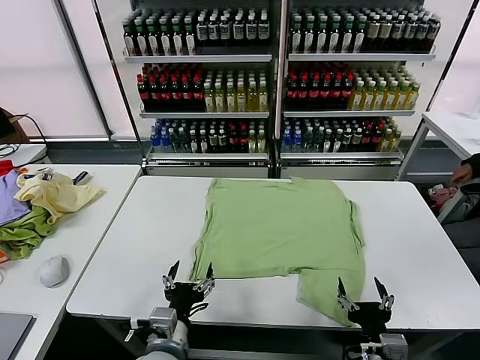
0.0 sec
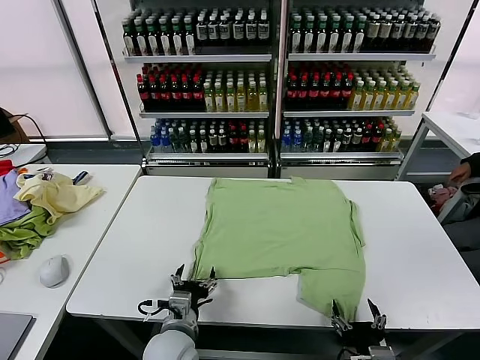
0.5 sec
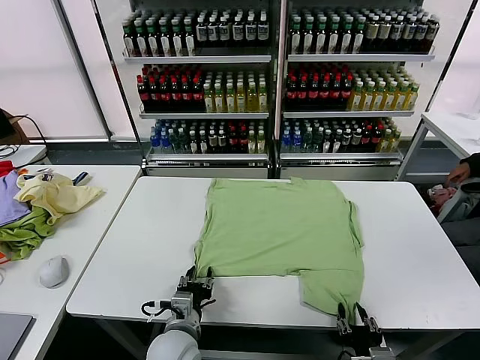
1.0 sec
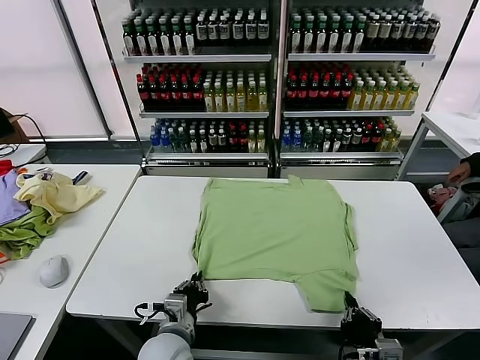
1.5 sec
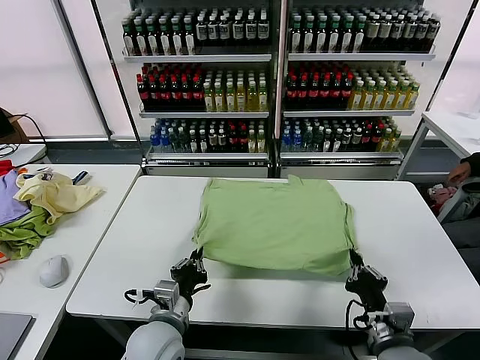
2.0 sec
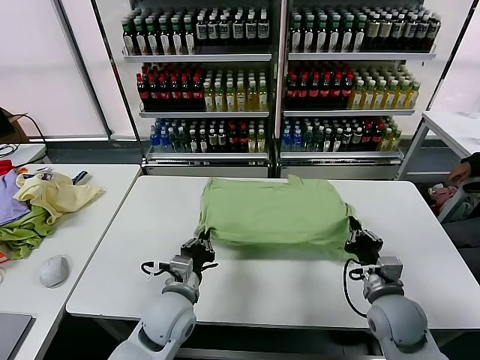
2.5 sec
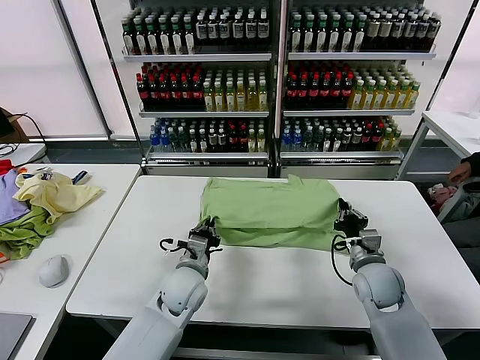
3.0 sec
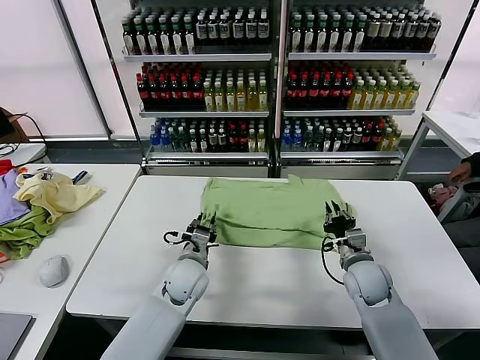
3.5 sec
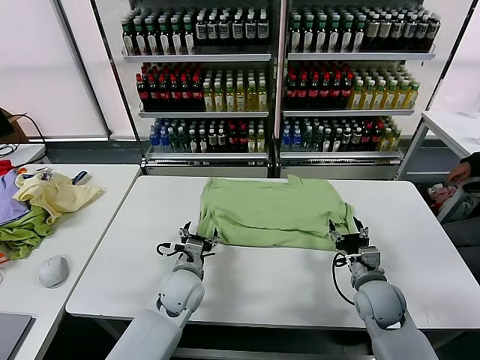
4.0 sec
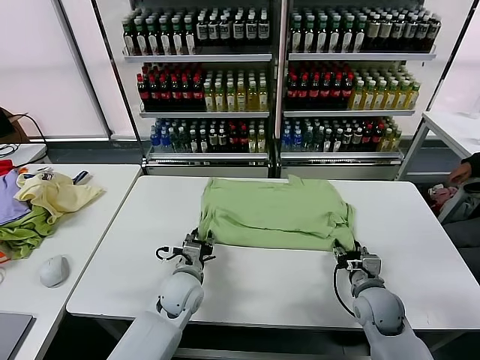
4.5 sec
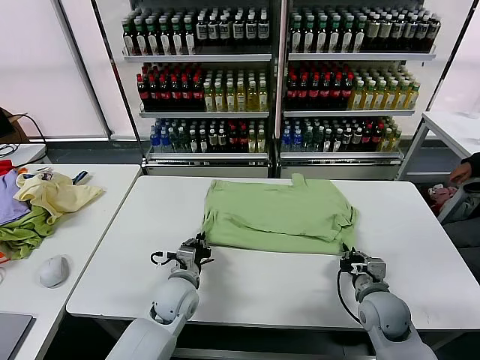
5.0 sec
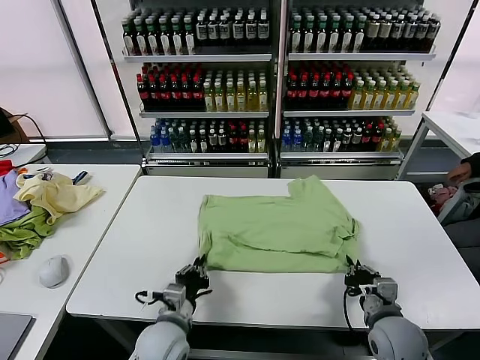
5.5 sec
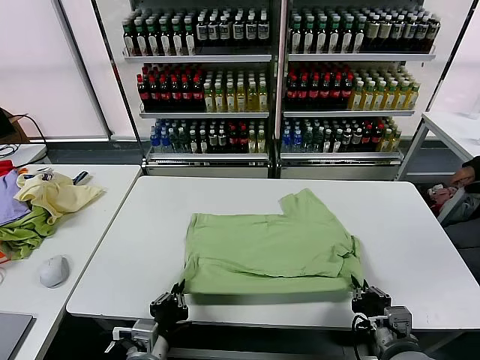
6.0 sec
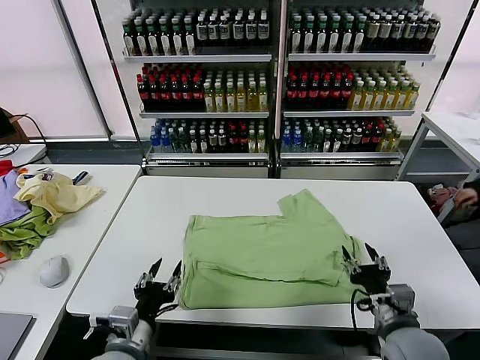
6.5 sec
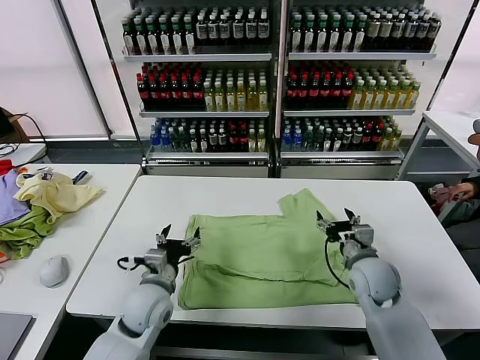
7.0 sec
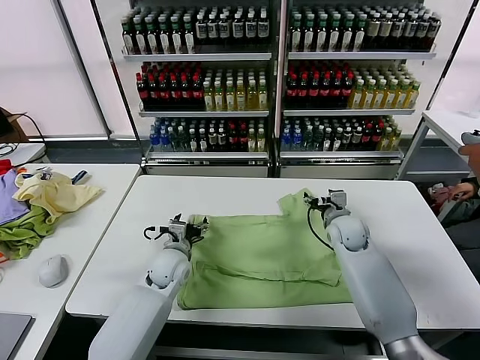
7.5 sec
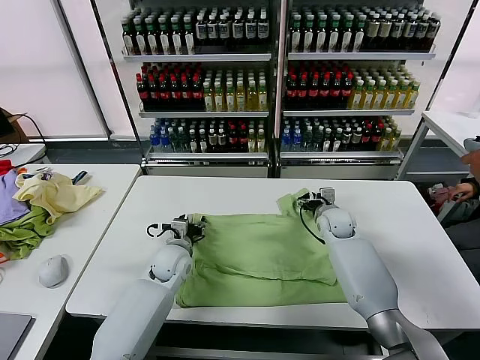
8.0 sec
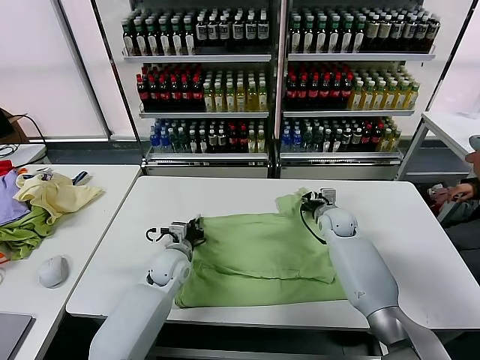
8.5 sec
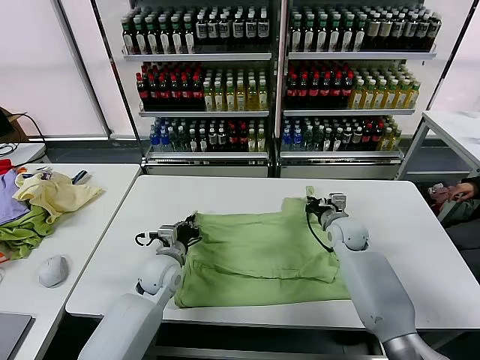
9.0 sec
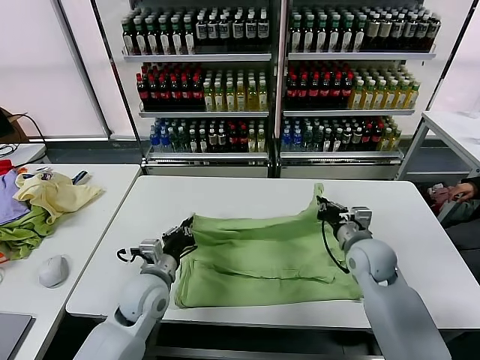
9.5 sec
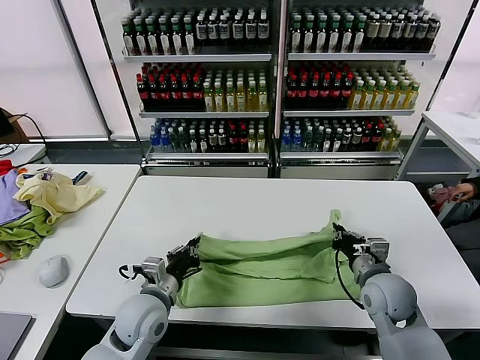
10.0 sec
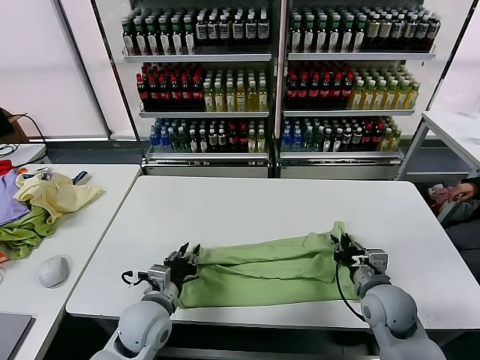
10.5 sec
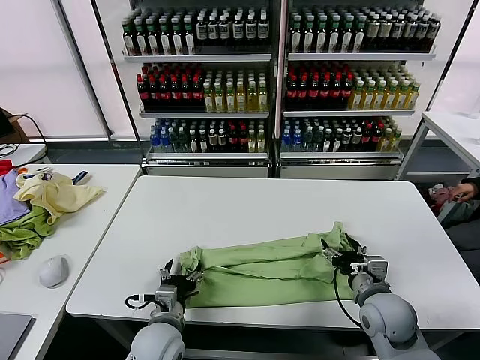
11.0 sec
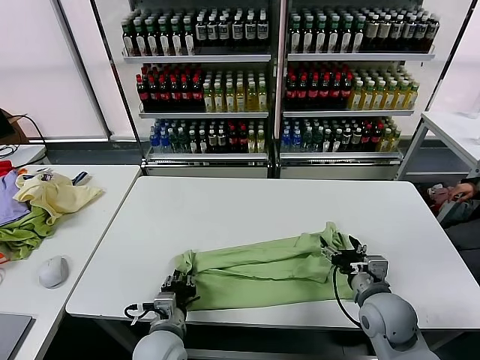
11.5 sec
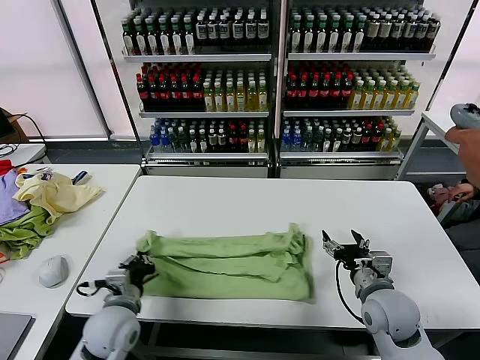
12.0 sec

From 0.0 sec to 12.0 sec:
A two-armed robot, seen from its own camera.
Task of the whole recording: fold and organize the clothes.
Step, from 0.0 sec to 1.5 sec: use both grippers simultaneously to clamp the lower edge of the clothing fabric.
Step, from 2.0 sec to 3.5 sec: use both grippers to drag the lower edge of the fabric forward and fold it over the upper edge.
Step, from 4.0 sec to 6.0 sec: Drag the clothes downward with both gripper.
Step, from 6.5 sec to 8.5 sec: use both grippers simultaneously to clamp the upper edge of the clothing fabric.
Step, from 9.0 sec to 10.5 sec: use both grippers to drag the upper edge of the fabric backward and fold it over the lower edge.
Step, from 11.0 sec to 11.5 sec: use the left gripper to clamp the left edge of the fabric.
From 2.0 sec to 4.0 sec: The two grippers go roughly 10 cm forward. The right gripper opens. The left gripper opens its fingers.
From 4.0 sec to 6.0 sec: The grippers both shift backward by some 20 cm. The left gripper closes its fingers; the right gripper closes its fingers.
From 6.0 sec to 8.0 sec: The two grippers go roughly 30 cm forward. The left gripper opens its fingers, while the right gripper opens its fingers.
From 8.0 sec to 10.0 sec: Both grippers move backward, approximately 20 cm. The right gripper closes its fingers; the left gripper closes.
From 10.0 sec to 12.0 sec: The right gripper opens its fingers; the left gripper opens, then closes once more.

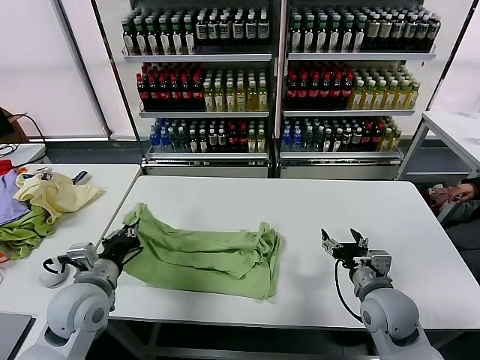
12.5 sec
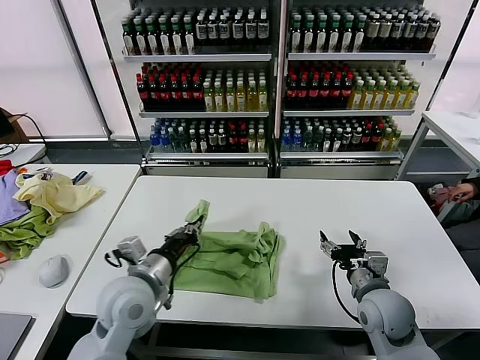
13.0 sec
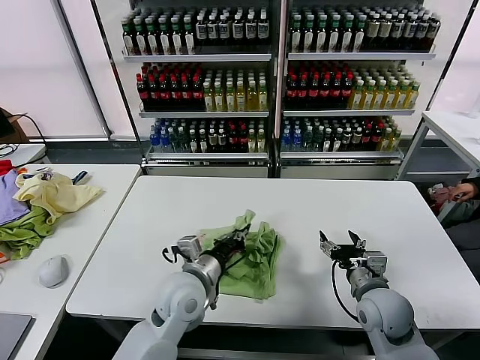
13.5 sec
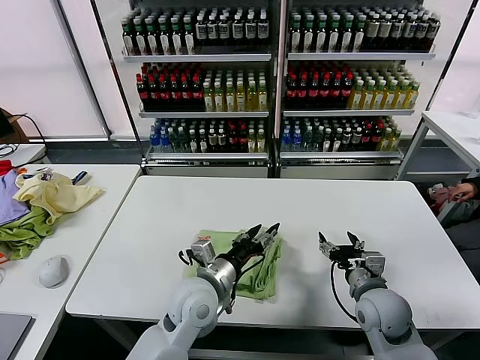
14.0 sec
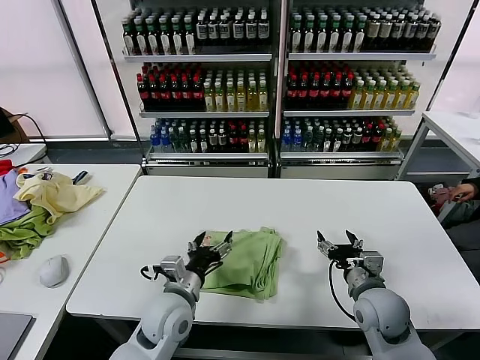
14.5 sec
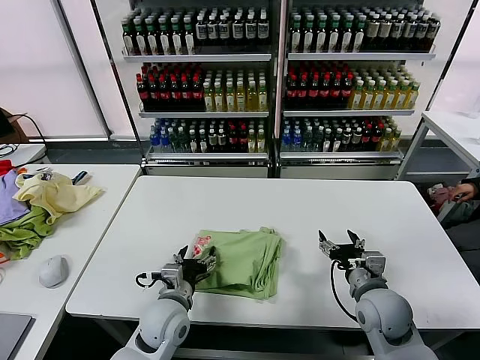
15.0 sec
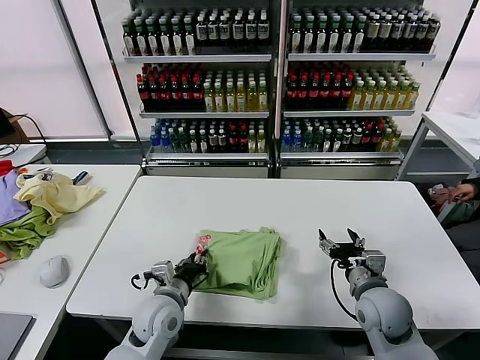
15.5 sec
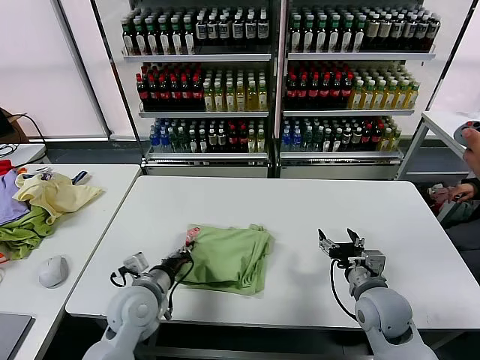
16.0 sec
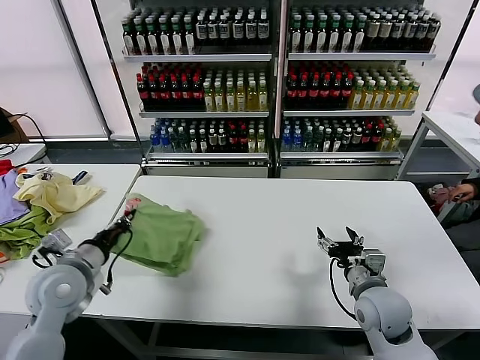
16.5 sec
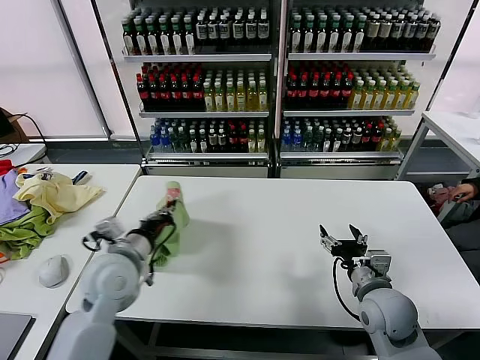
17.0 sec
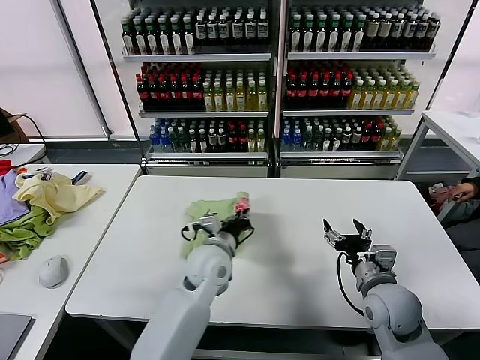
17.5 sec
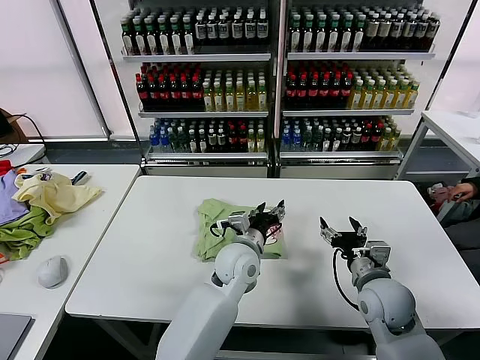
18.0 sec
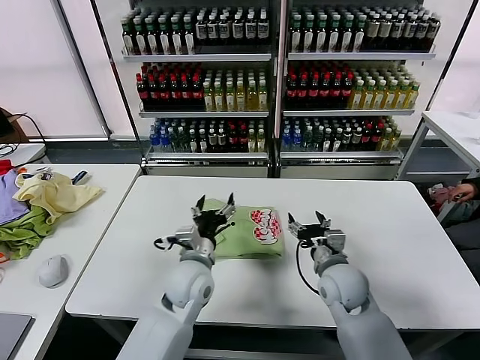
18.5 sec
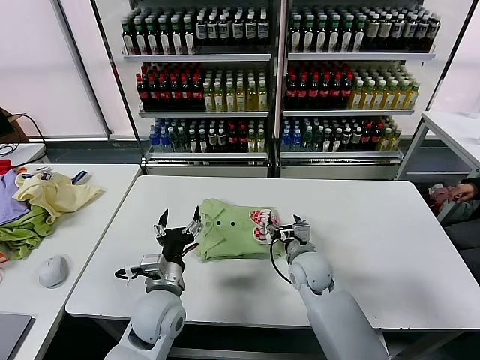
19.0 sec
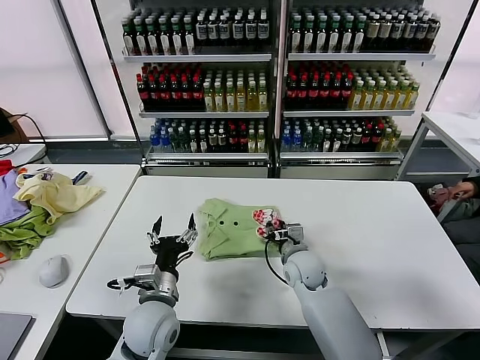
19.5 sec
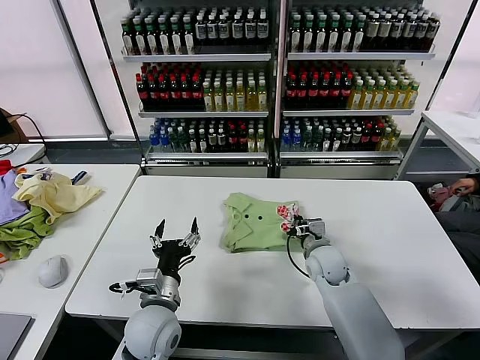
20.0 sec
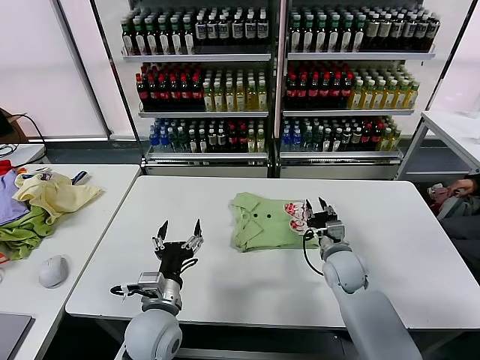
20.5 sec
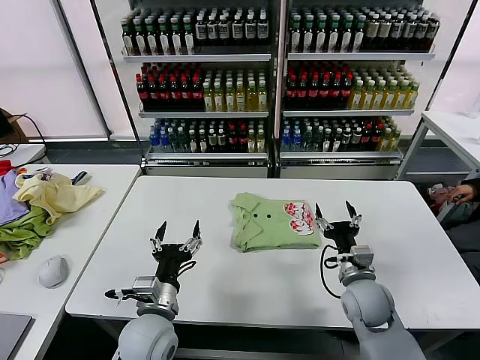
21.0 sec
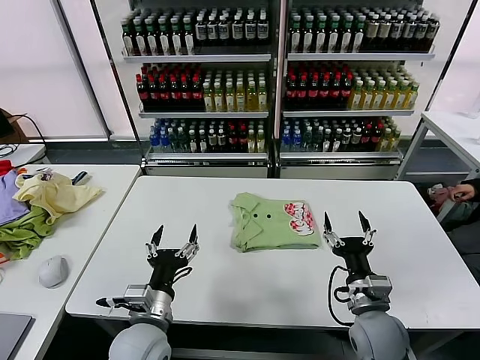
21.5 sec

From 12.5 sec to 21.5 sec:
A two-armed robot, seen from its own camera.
Task of the whole recording: fold and organize the clothes.
Step, from 14.0 sec to 17.5 sec: Flip the folded clothes over with left gripper.
Step, from 18.0 sec to 20.5 sec: Drag the clothes to the center of the table.
From 12.5 sec to 14.5 sec: The left gripper moves to the right, some 15 cm, and opens its fingers.
From 14.5 sec to 17.0 sec: The left gripper shifts about 15 cm to the left and upward, and closes.
From 17.0 sec to 19.5 sec: The left gripper heads to the right, downward and backward, covering some 15 cm, and opens its fingers. The right gripper goes roughly 20 cm to the left, forward and downward, and closes.
From 19.5 sec to 21.5 sec: The right gripper heads backward and to the right, covering about 20 cm, and opens its fingers.
